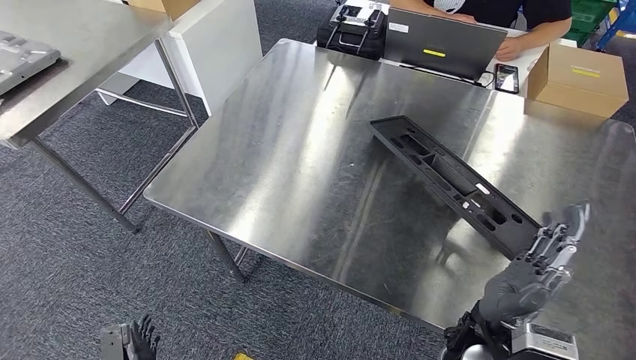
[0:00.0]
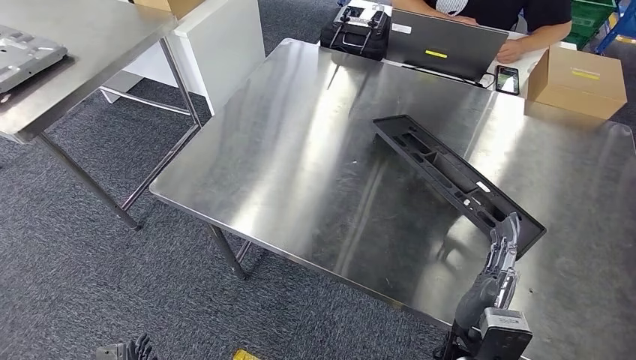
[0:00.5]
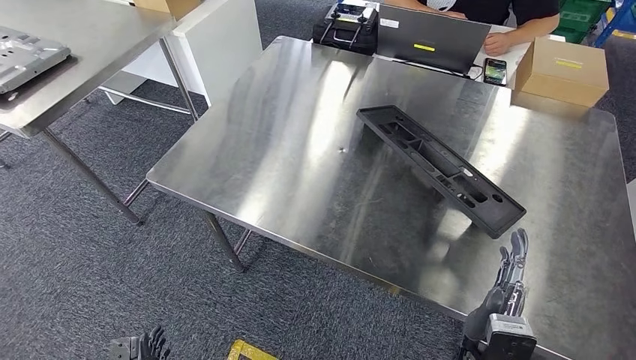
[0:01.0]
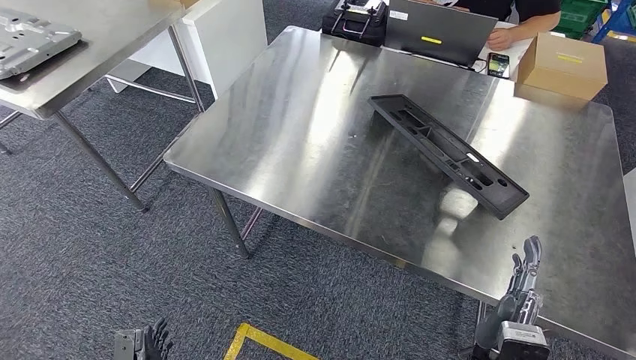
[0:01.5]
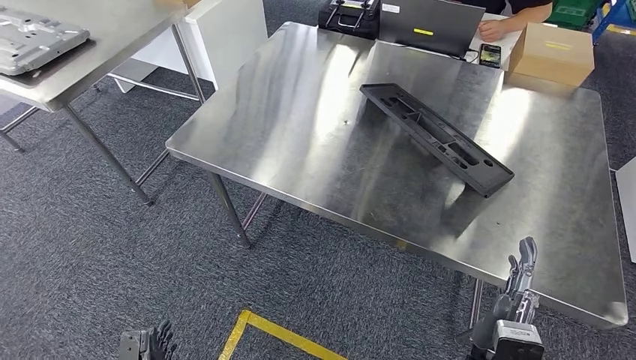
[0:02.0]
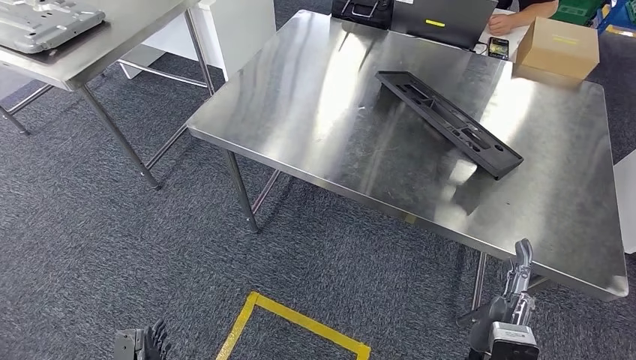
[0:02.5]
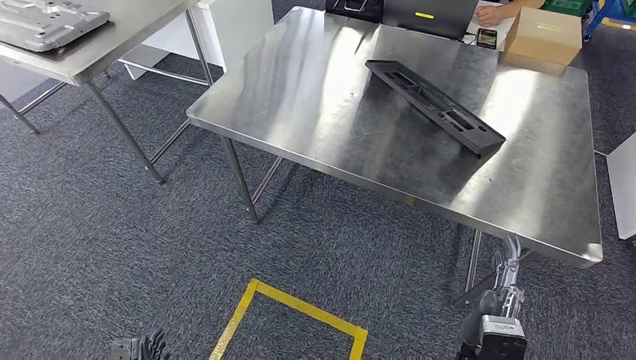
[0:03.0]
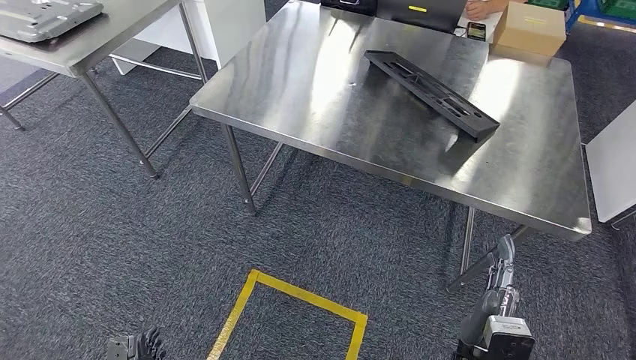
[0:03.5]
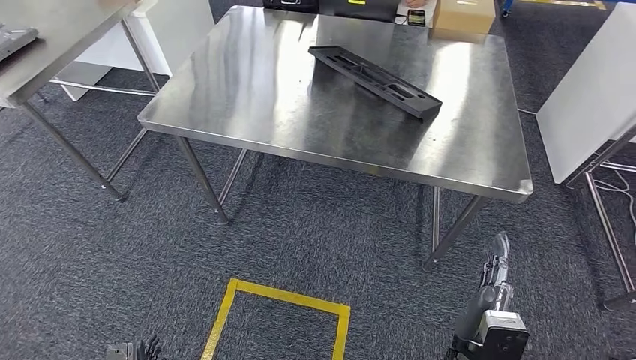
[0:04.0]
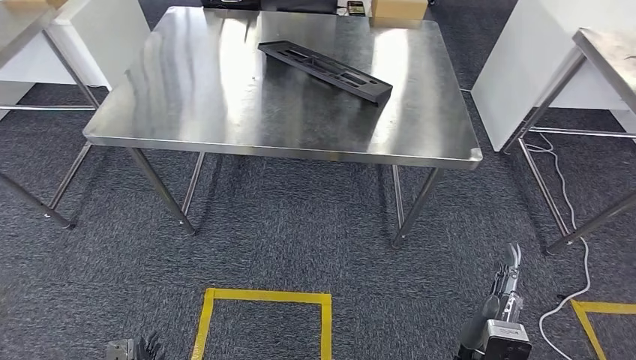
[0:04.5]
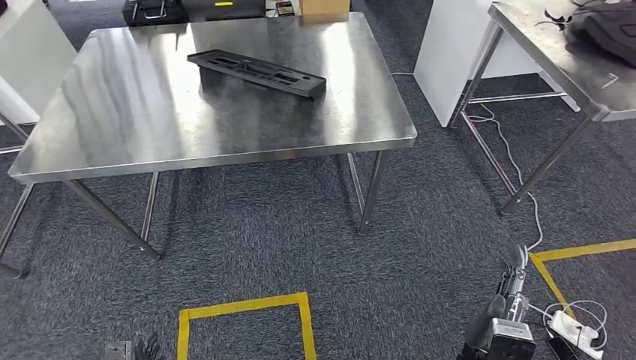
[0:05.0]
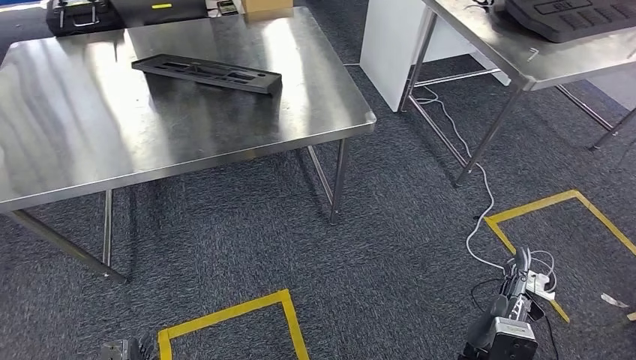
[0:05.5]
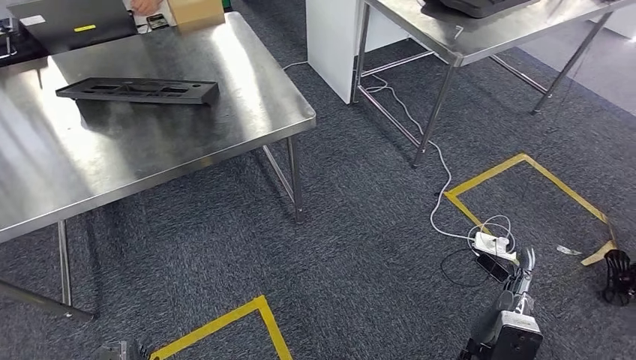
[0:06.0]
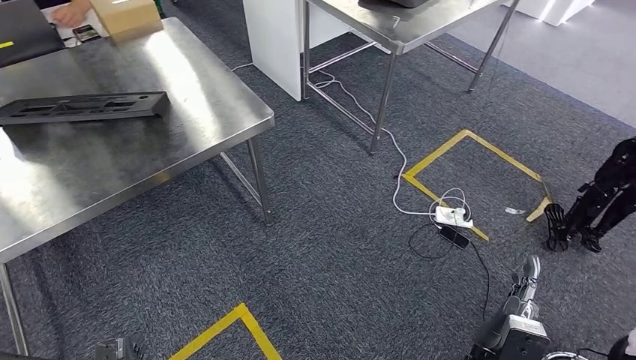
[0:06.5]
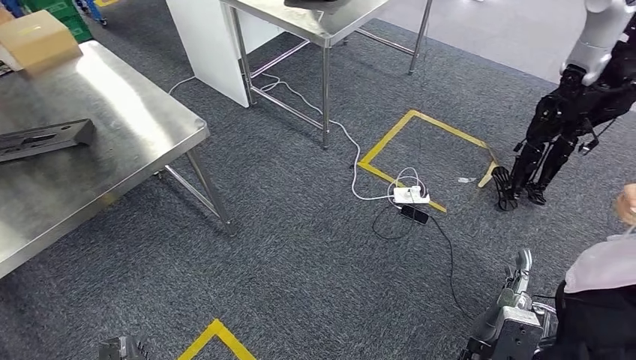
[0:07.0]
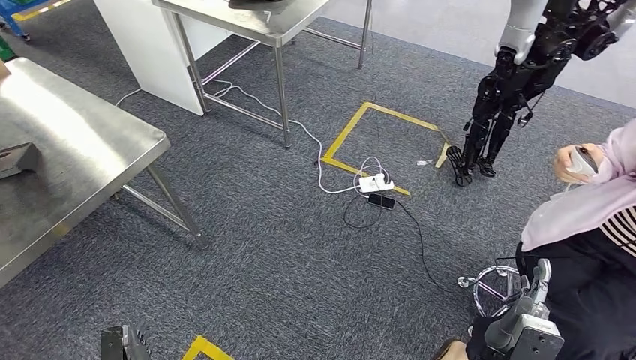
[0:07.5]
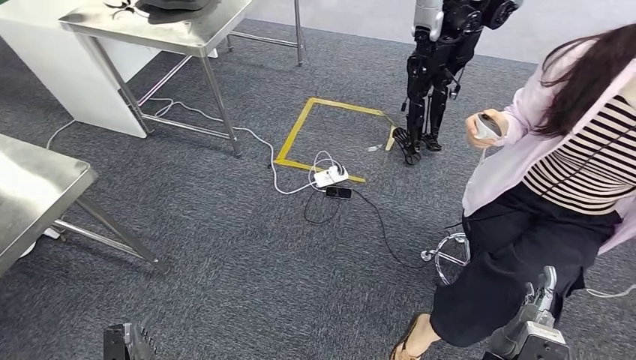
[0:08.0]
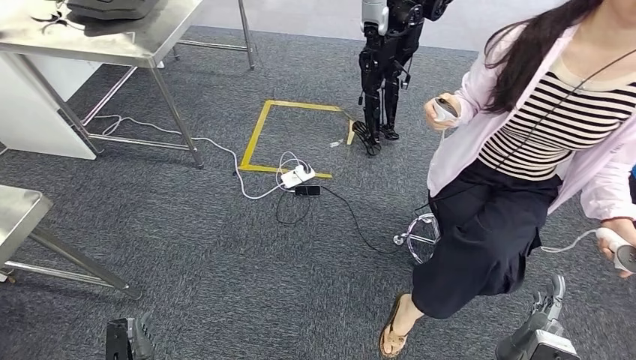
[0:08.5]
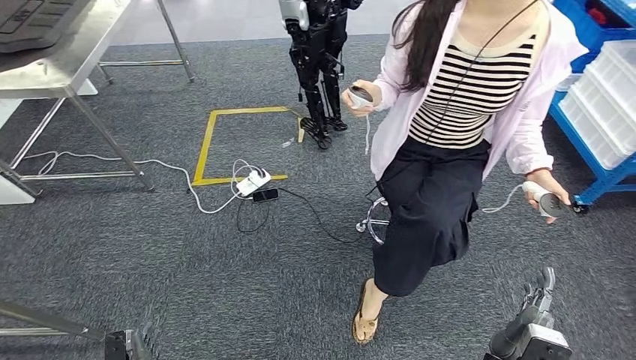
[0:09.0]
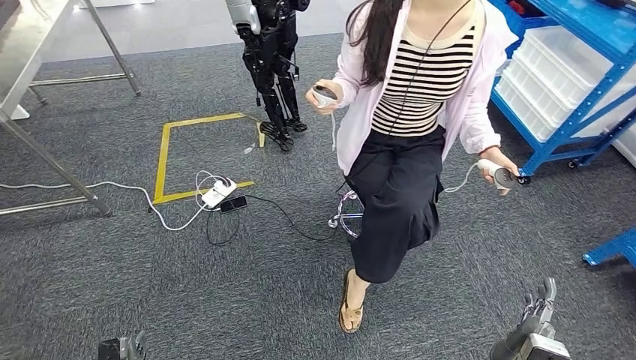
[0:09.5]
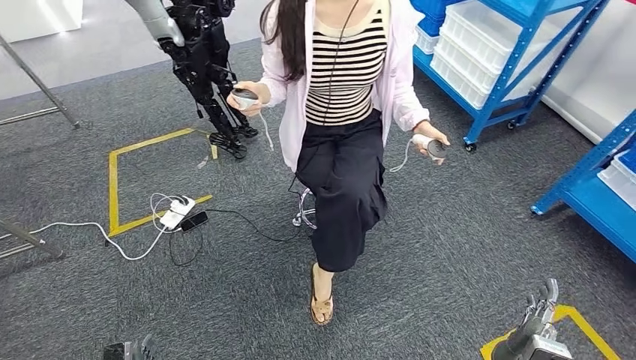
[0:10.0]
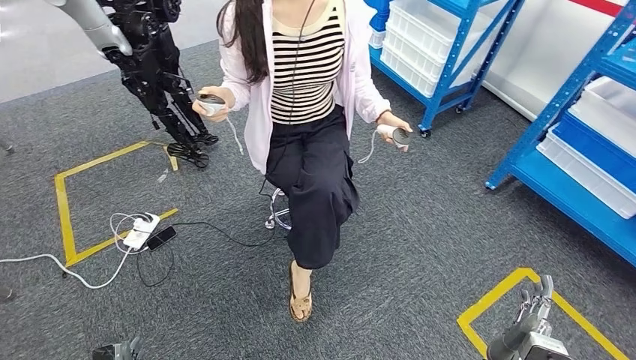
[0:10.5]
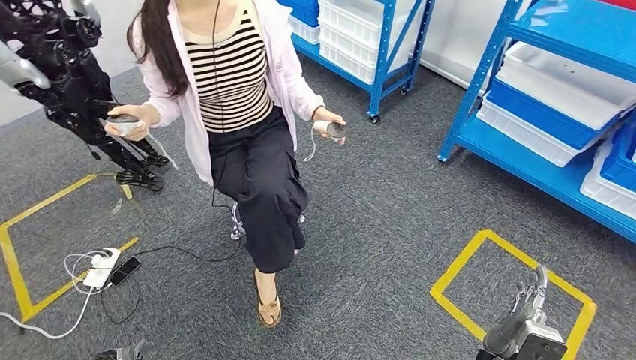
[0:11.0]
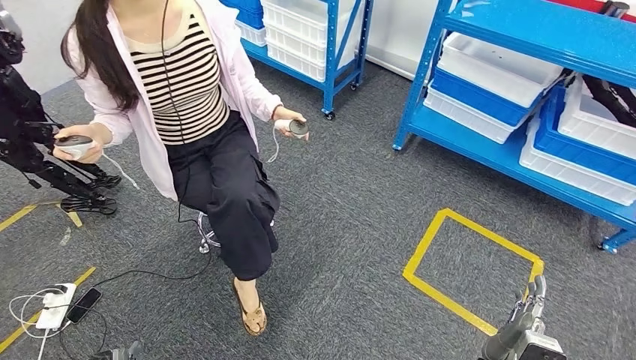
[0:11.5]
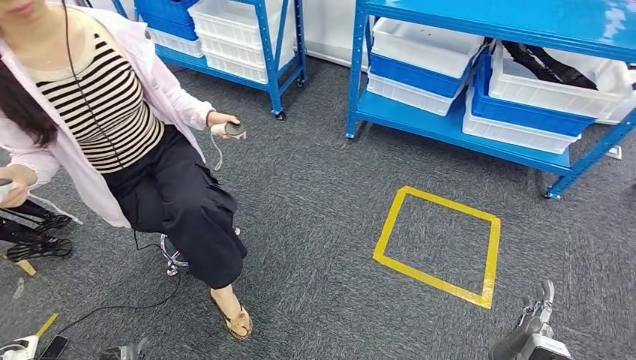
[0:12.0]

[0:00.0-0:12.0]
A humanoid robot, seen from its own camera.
Step, 0:00.0 to 0:05.0: Insert the large material into the corresponding slot on the workbench.

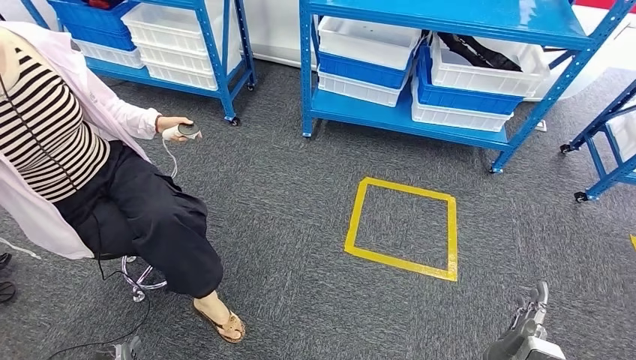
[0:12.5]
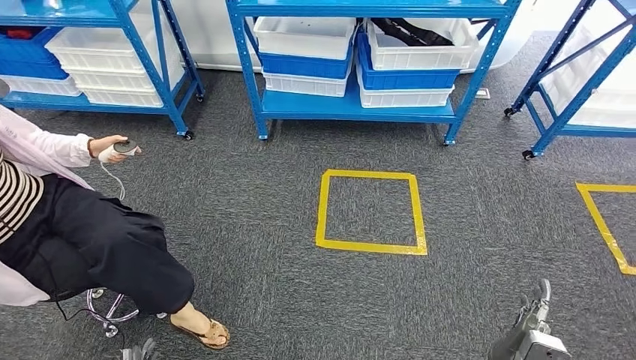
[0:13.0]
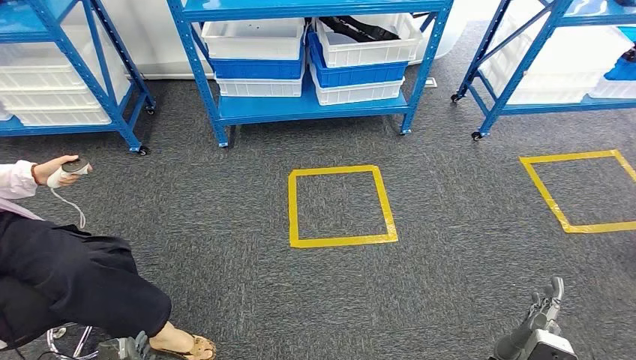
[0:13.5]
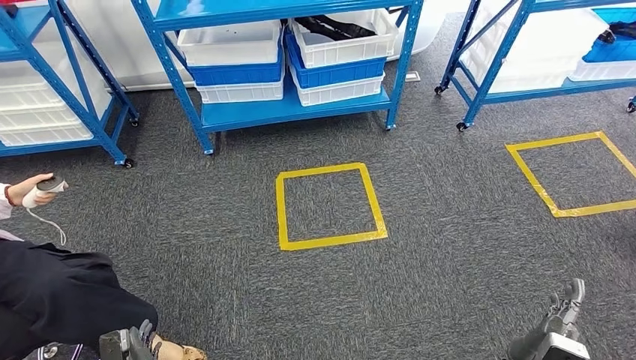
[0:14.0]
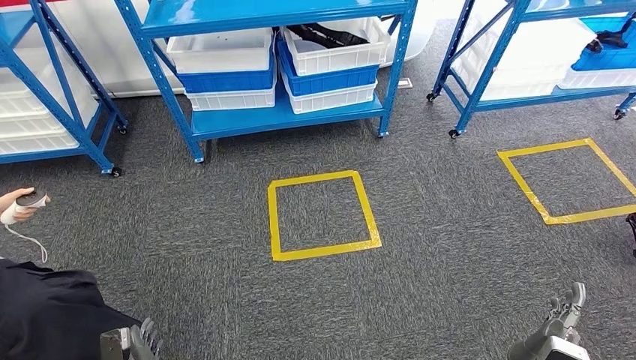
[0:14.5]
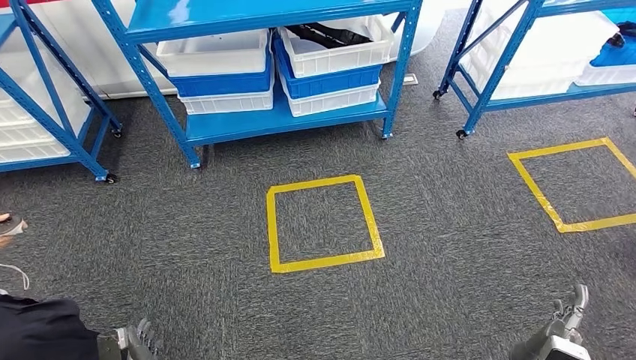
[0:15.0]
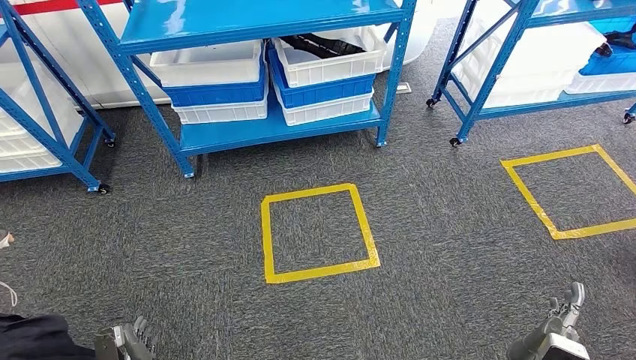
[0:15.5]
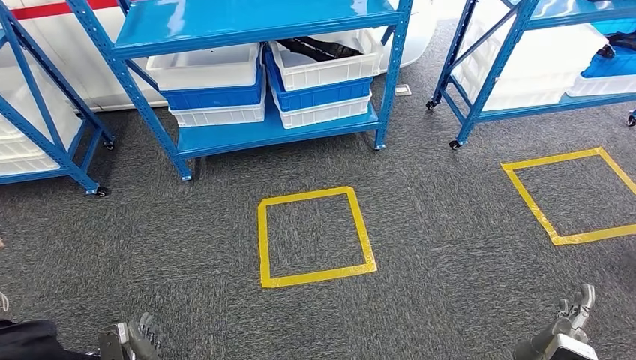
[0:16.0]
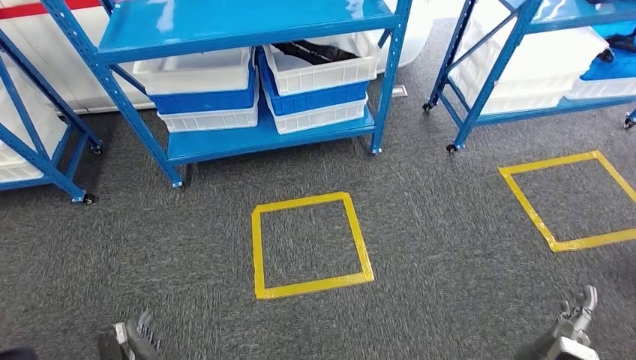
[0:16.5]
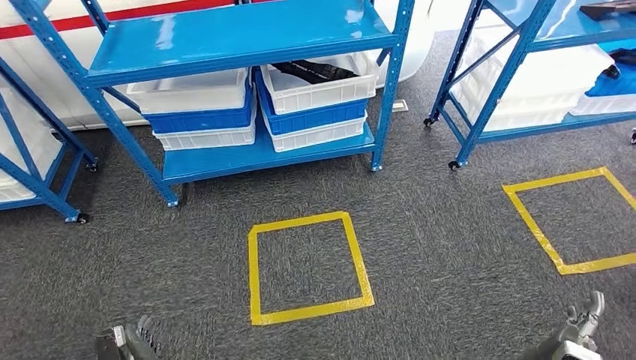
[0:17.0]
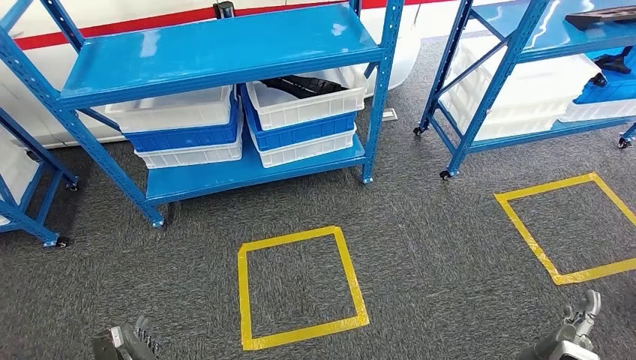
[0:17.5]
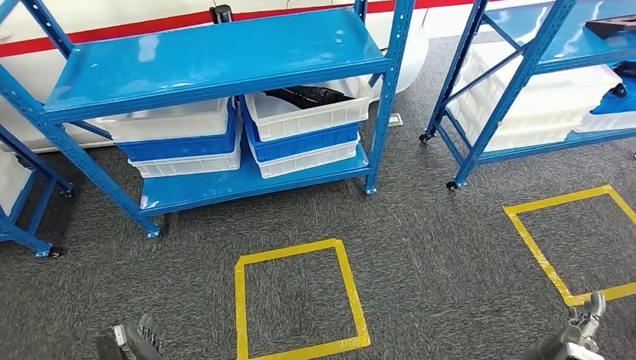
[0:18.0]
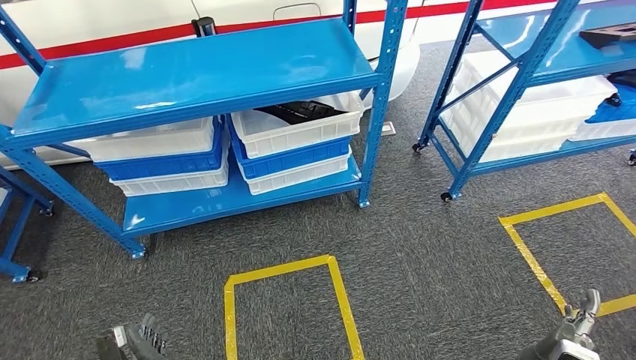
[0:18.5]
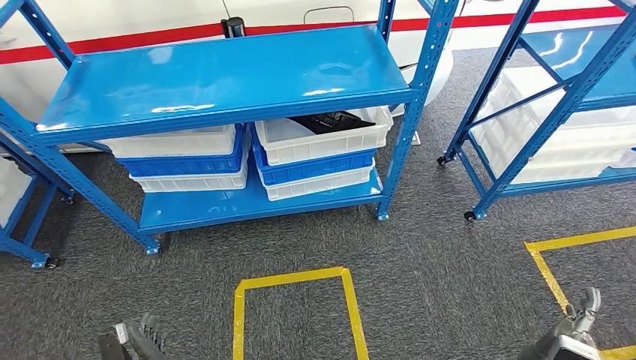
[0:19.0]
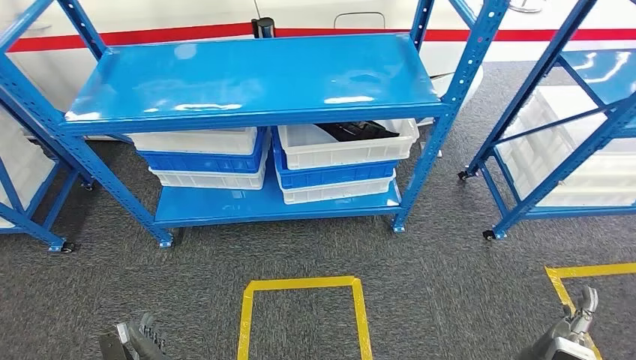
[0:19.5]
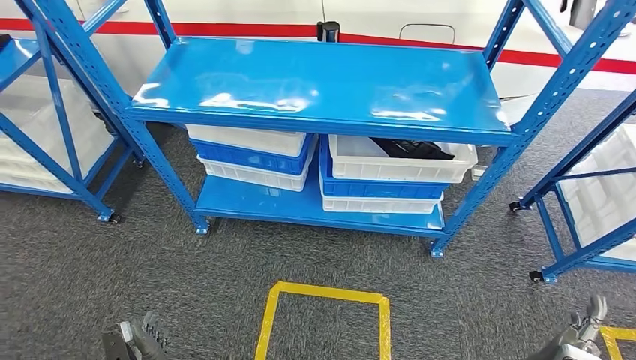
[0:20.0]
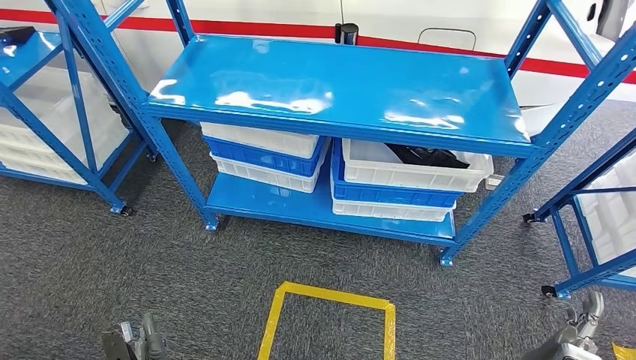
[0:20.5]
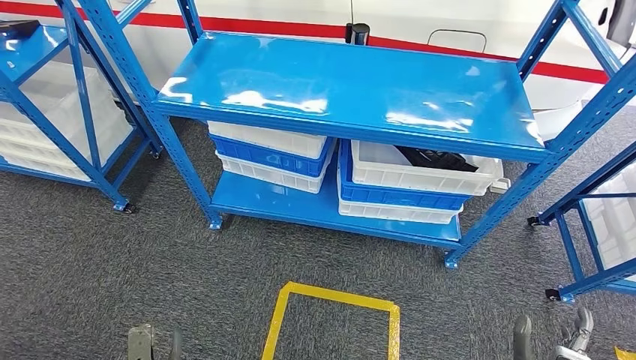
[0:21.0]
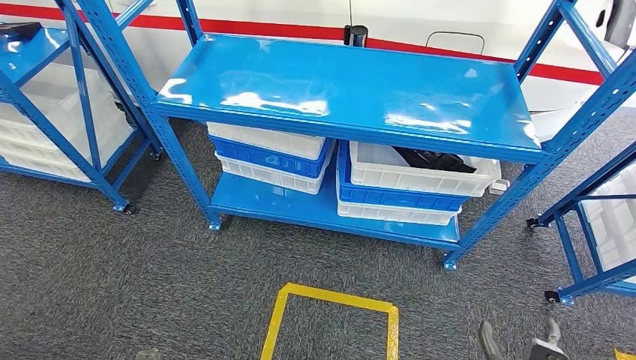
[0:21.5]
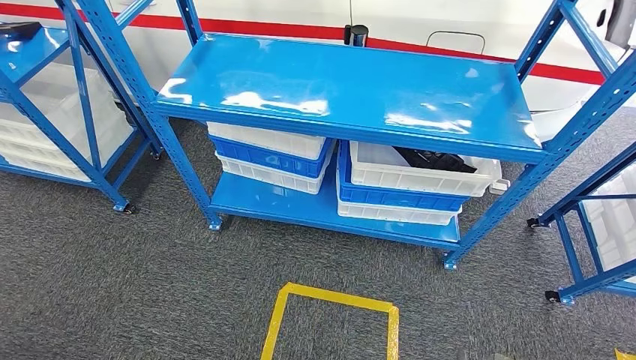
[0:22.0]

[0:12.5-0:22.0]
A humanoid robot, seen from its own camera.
Step, 0:12.5 to 0:22.0: Move to the initial position of the shelf.
